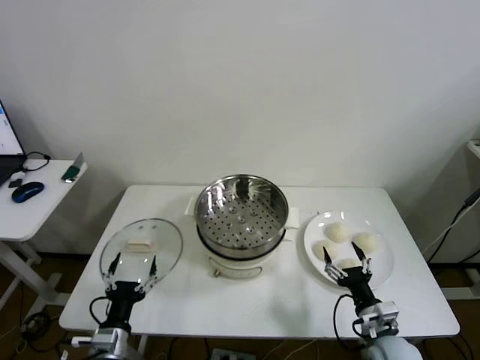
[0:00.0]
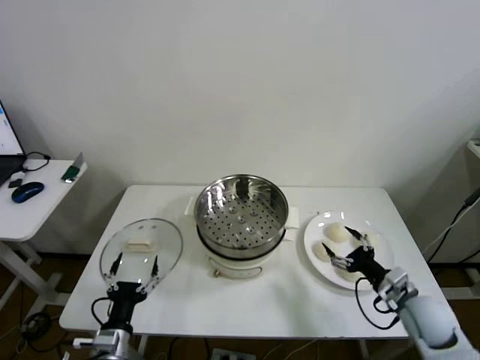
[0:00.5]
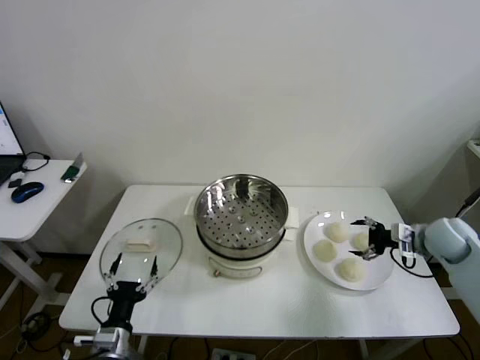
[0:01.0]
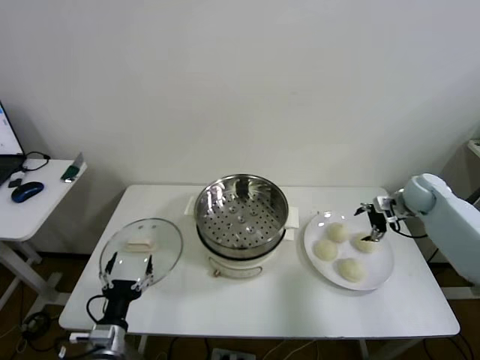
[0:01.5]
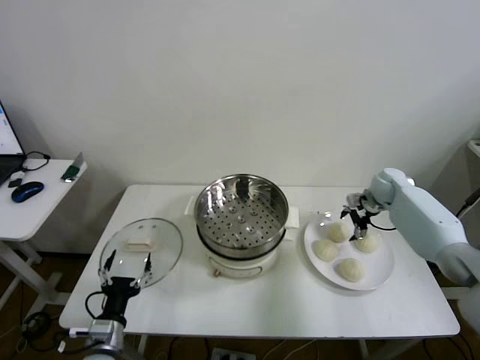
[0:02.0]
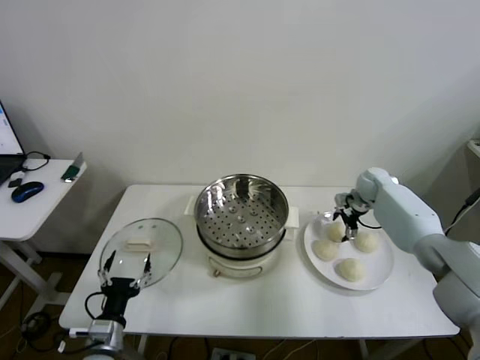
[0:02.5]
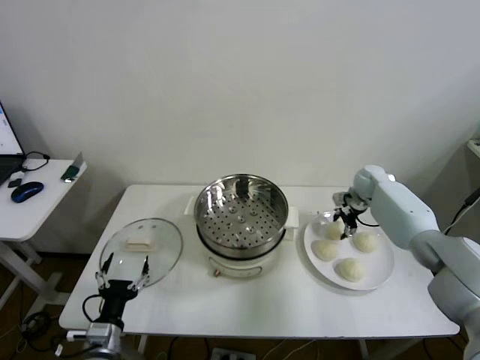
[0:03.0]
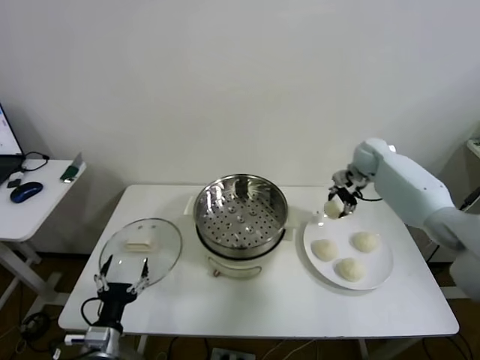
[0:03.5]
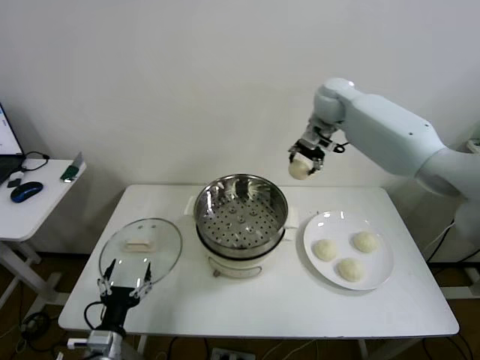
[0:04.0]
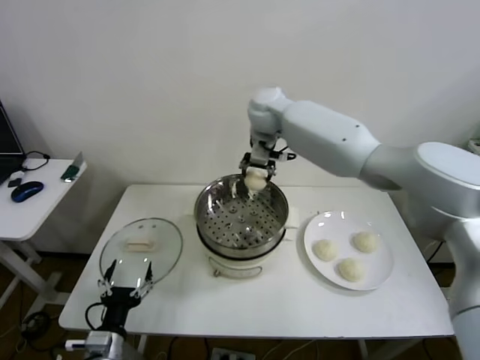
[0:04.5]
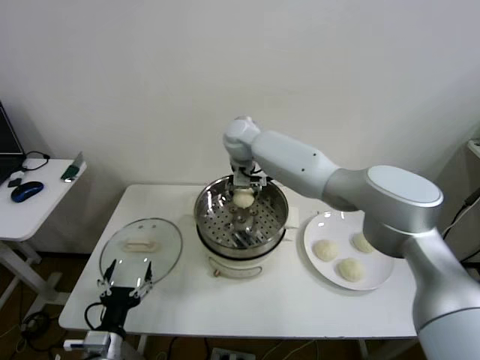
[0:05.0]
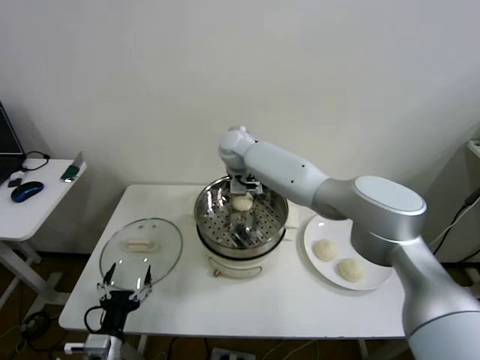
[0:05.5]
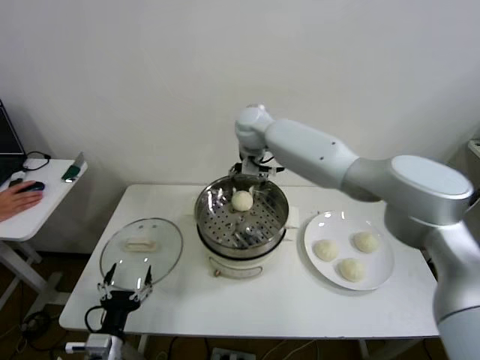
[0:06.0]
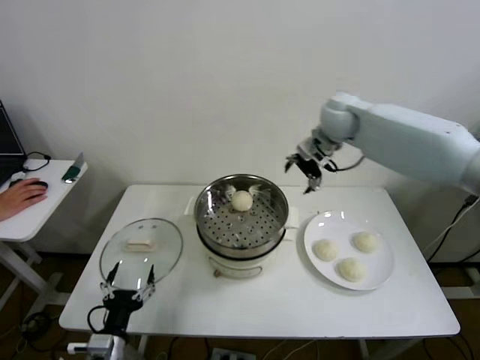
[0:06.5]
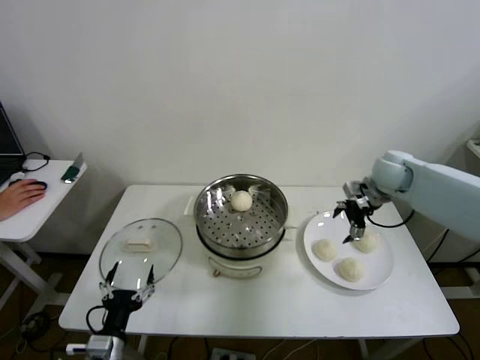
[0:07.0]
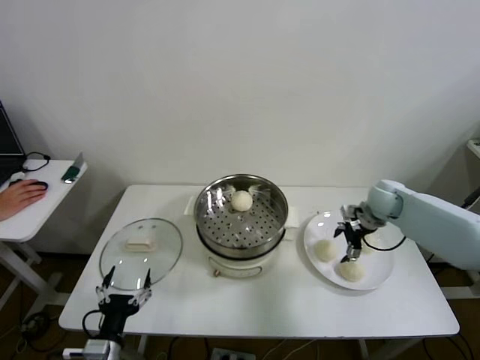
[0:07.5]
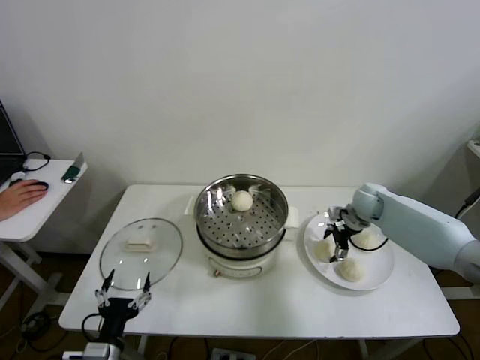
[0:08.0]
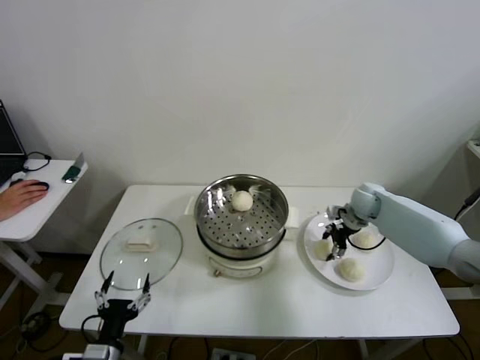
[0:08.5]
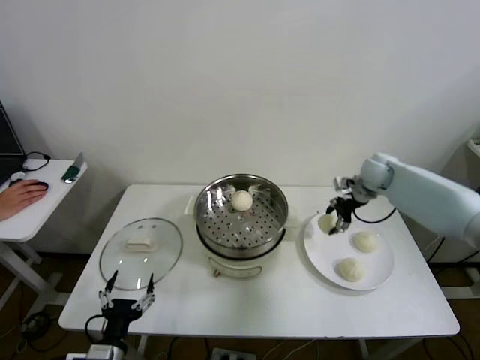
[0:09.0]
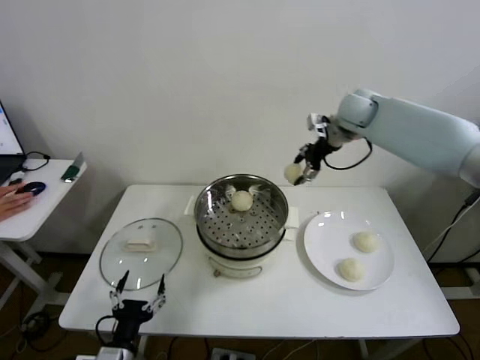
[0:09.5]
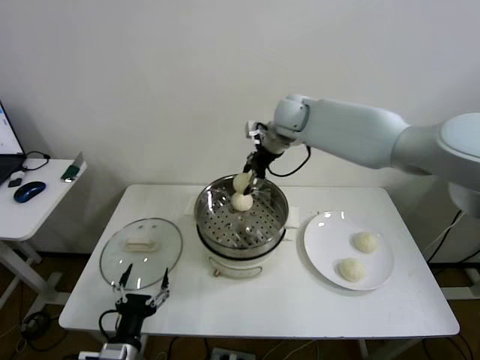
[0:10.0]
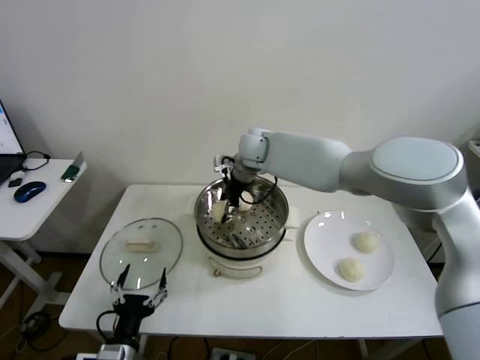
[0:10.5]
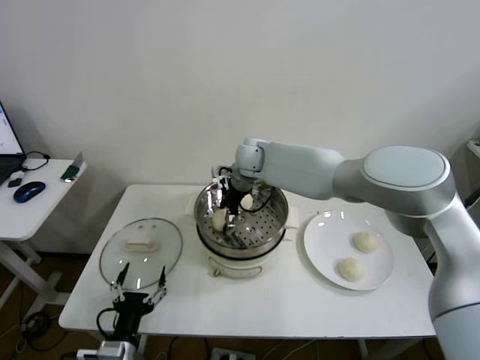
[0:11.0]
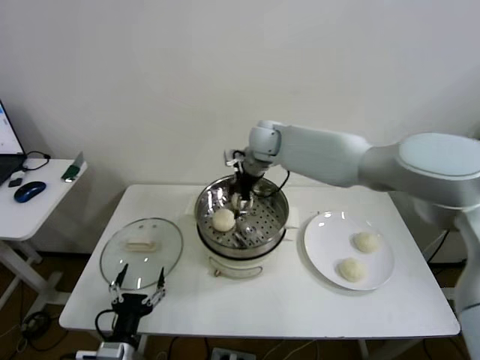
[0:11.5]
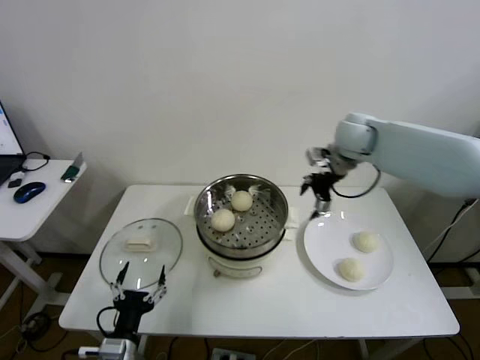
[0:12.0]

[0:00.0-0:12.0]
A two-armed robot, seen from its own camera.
Step, 0.0 to 3.0 s: Grasp the baozi in the plate with right gripper.
Step, 3.5 to 5.5 s: Place the baozi on the steamer with right gripper.
Step, 6.0 to 8.0 s: Grasp the baozi in the plate with right gripper.
Step, 8.5 to 11.0 s: Place the baozi on the steamer with right gripper.
2.0 to 4.0 s: The right gripper heads upward and to the left, covering some 35 cm, and closes.
4.0 to 6.0 s: The right gripper is displaced to the left by about 10 cm, and opens its fingers.
6.0 to 8.0 s: The right gripper moves to the right and downward, approximately 35 cm.
8.0 to 10.0 s: The right gripper moves to the left and upward, approximately 35 cm, and closes its fingers.
10.0 to 12.0 s: The right gripper heads to the right, covering some 20 cm, and opens up.

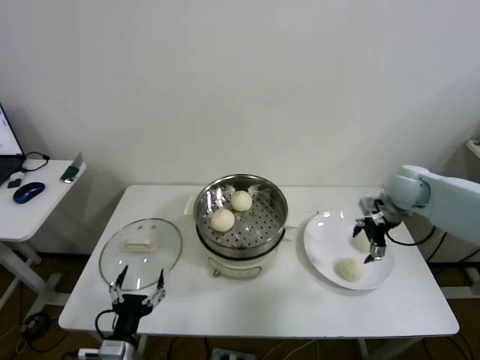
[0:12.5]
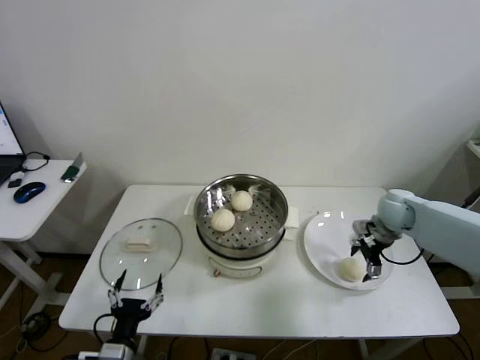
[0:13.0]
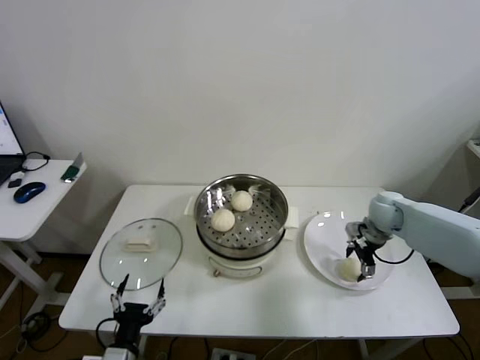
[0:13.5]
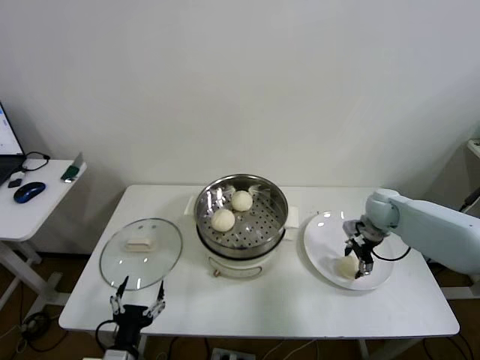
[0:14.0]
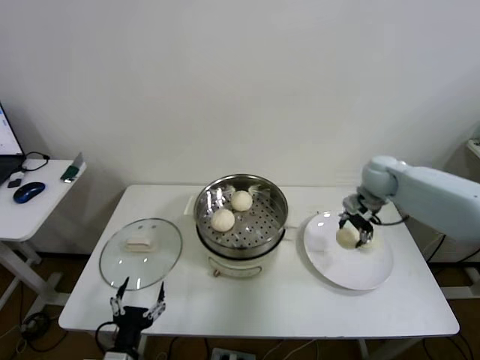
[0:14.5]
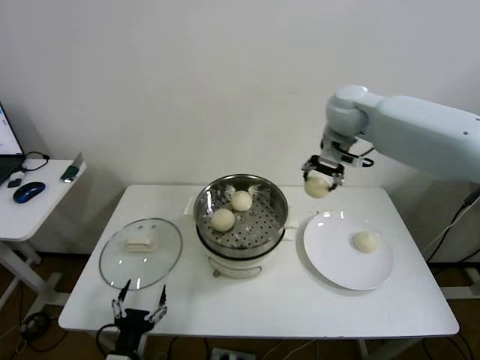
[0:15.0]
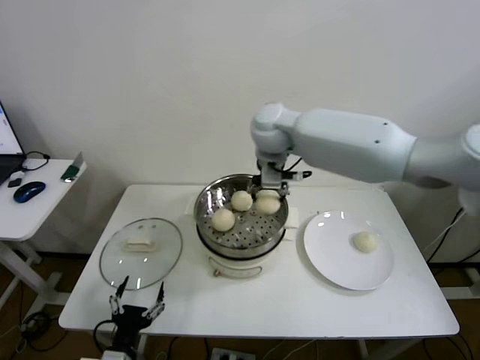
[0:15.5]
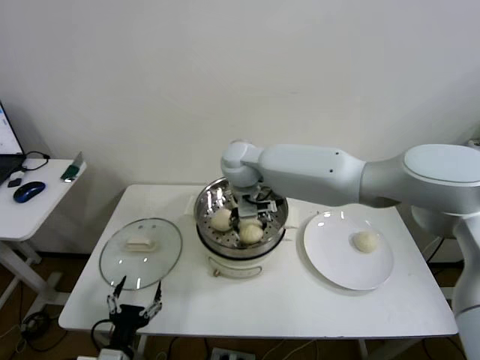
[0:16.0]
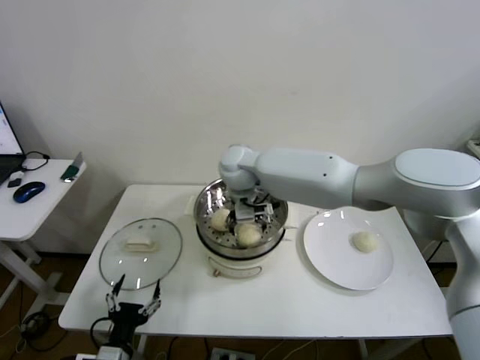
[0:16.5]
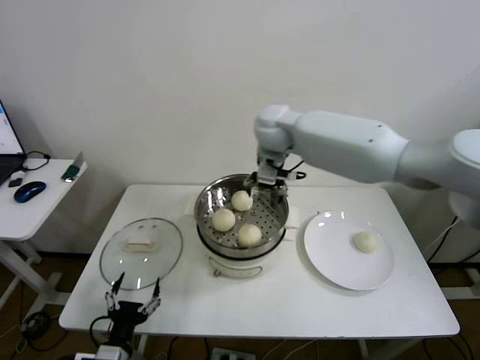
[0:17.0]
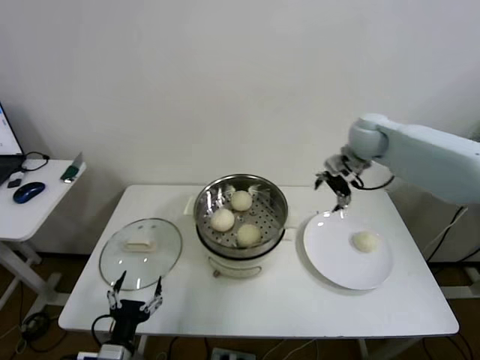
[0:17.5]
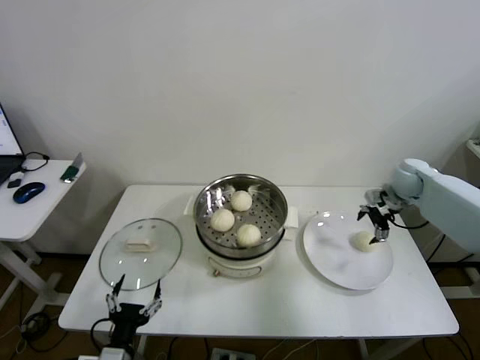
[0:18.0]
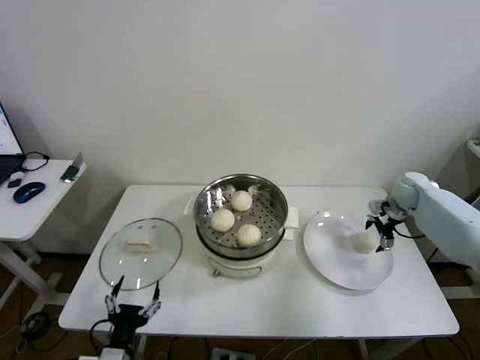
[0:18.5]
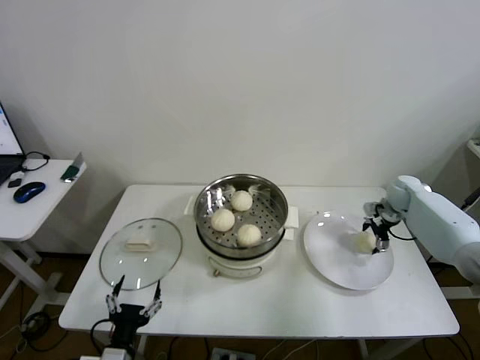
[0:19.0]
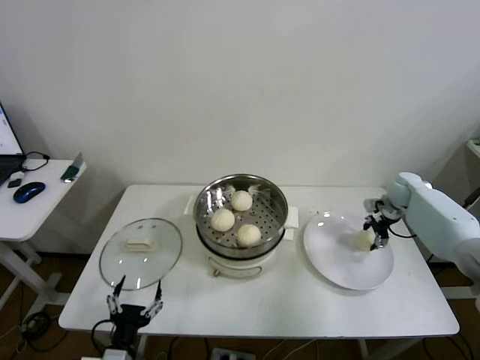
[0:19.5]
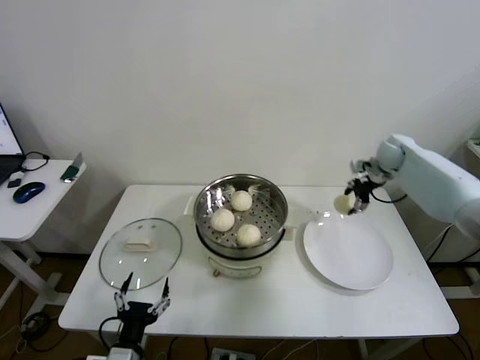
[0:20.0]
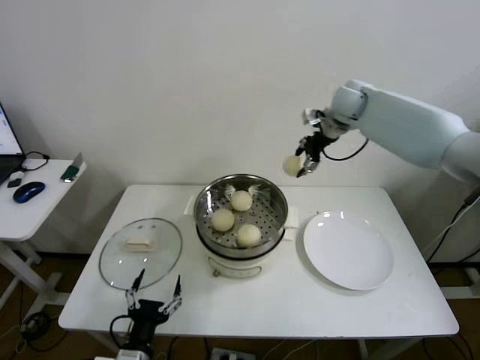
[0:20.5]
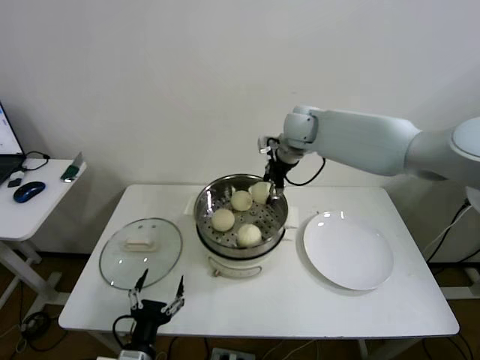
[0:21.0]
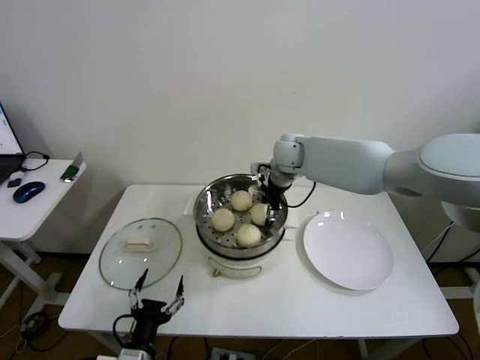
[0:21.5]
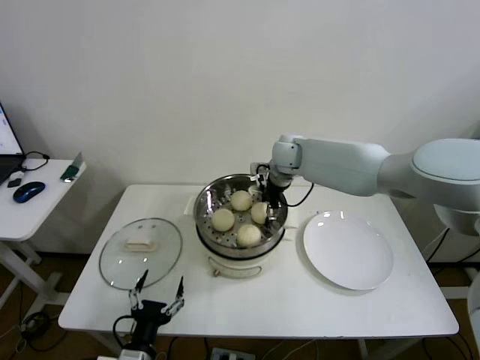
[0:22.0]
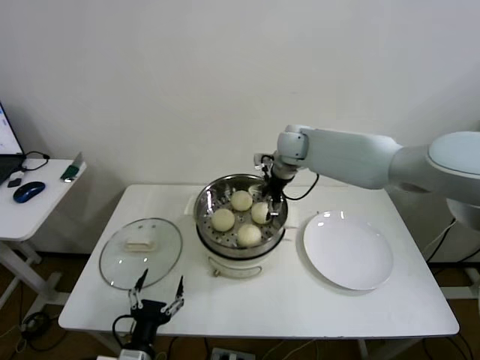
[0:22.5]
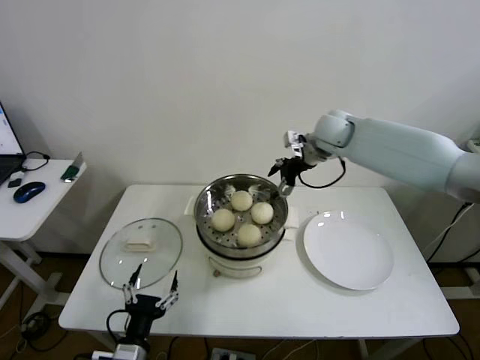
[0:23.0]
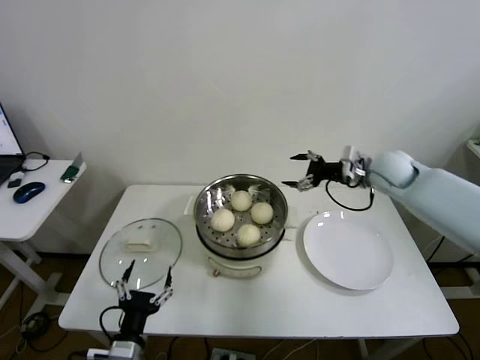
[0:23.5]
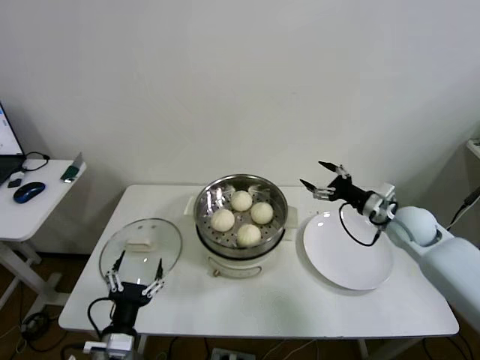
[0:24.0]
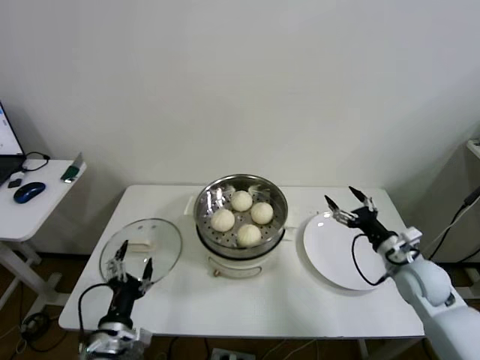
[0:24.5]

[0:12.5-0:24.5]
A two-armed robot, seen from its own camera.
Step, 14.0 to 16.0 s: Place the baozi on the steamer with right gripper.
Step, 16.5 to 19.0 s: Grasp the baozi in the plate with right gripper.
Step, 19.5 to 22.0 s: Place the baozi on the steamer with right gripper.
12.5 to 14.5 s: The right gripper shifts approximately 10 cm to the left and forward, moves roughly 10 cm downward and comes back, and closes.
14.5 to 16.5 s: The right gripper travels to the left by roughly 35 cm, and opens its fingers.
16.5 to 18.5 s: The right gripper travels to the right by about 50 cm.
18.5 to 20.5 s: The right gripper travels upward and to the left by some 30 cm, and closes its fingers.
20.5 to 22.5 s: The right gripper is displaced to the left and downward by about 15 cm, and opens.
22.5 to 24.5 s: The left gripper shifts by about 5 cm. The right gripper goes roughly 40 cm backward, to the right and downward.

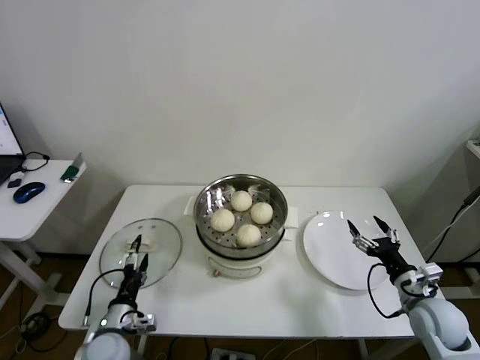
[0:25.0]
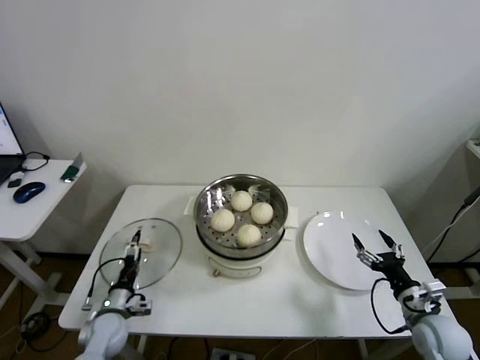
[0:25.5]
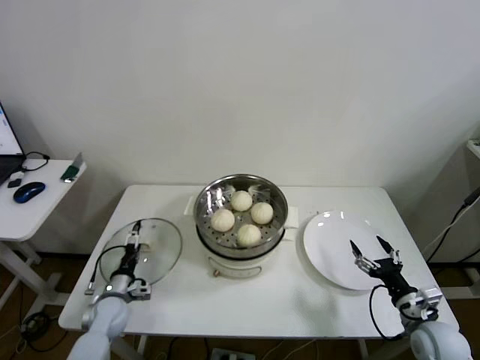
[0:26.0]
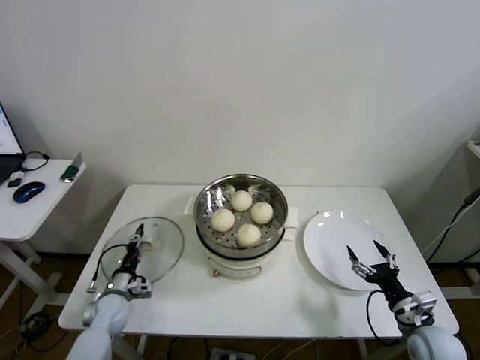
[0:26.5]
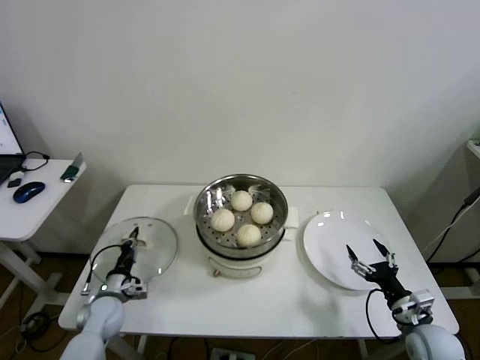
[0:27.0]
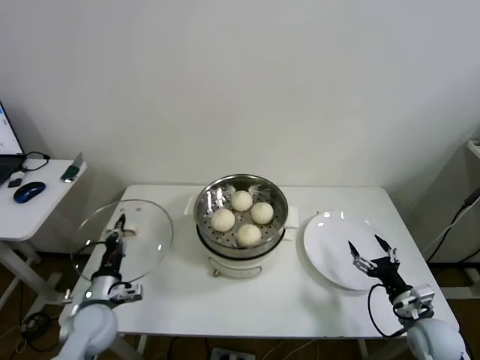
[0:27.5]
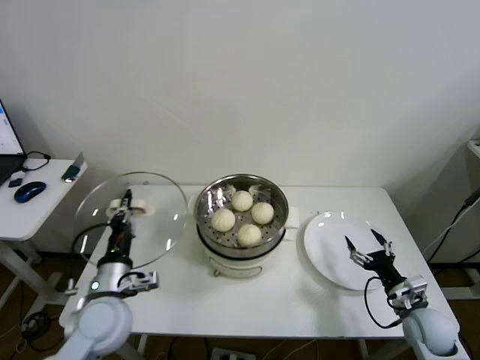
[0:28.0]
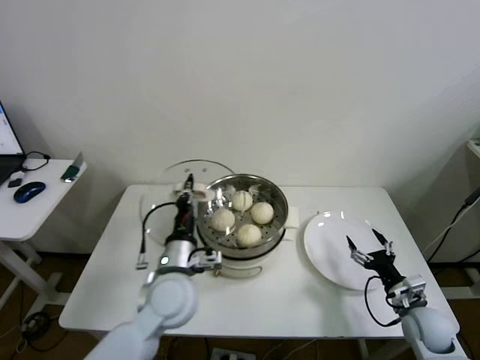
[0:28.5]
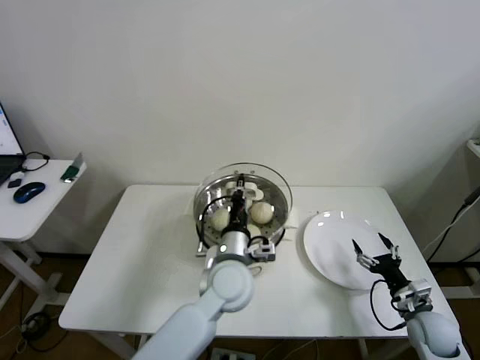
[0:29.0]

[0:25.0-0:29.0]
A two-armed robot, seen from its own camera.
25.0 to 27.0 s: The right gripper shifts some 5 cm downward. The left gripper heads forward, to the left and downward, covering approximately 15 cm, and closes up.
27.0 to 29.0 s: The left gripper goes roughly 40 cm to the right and upward.
